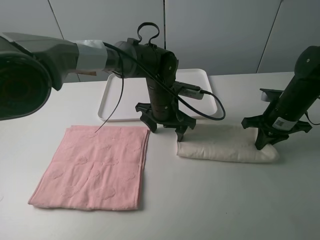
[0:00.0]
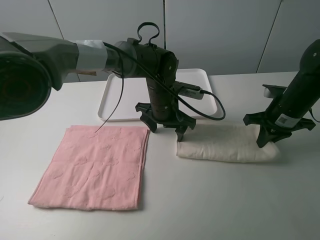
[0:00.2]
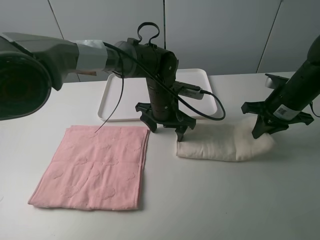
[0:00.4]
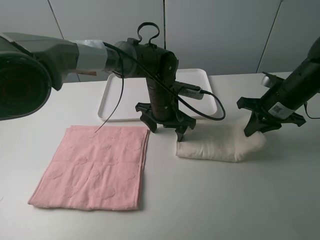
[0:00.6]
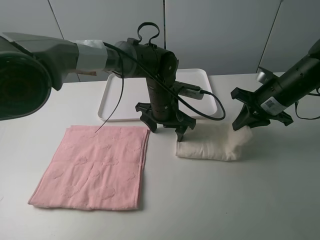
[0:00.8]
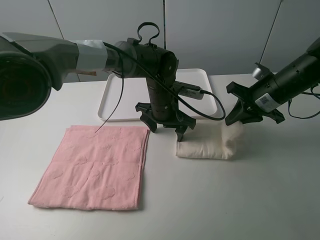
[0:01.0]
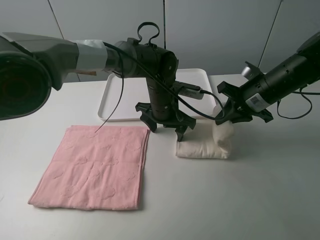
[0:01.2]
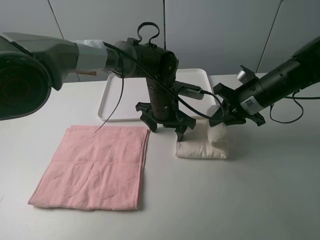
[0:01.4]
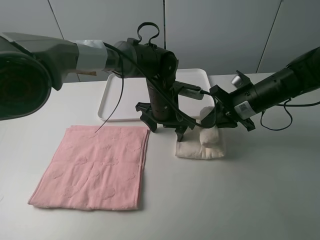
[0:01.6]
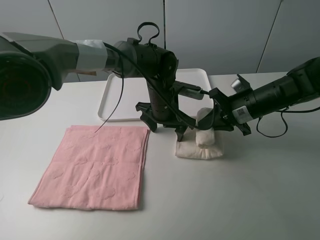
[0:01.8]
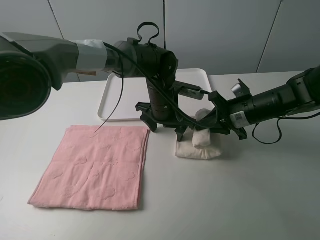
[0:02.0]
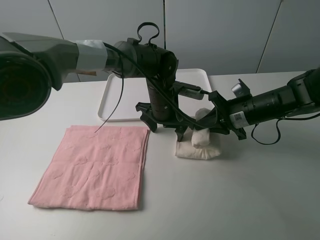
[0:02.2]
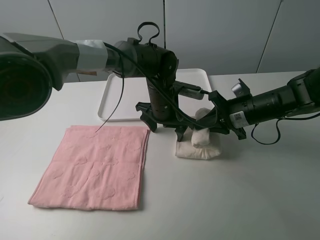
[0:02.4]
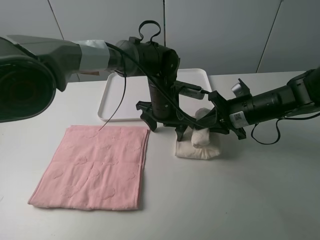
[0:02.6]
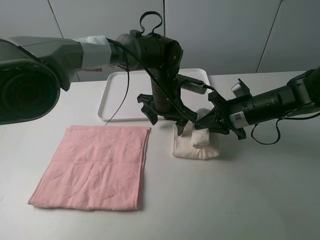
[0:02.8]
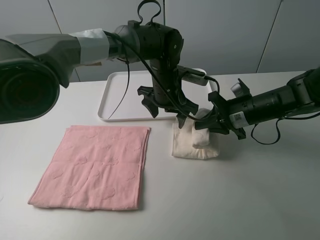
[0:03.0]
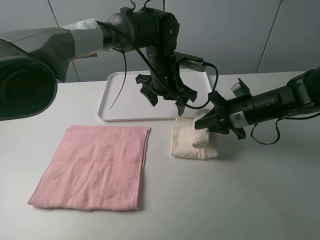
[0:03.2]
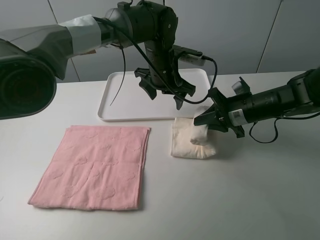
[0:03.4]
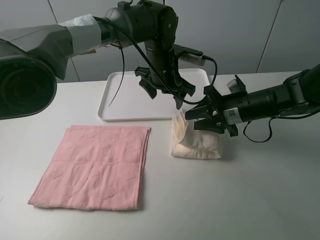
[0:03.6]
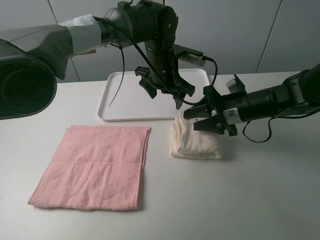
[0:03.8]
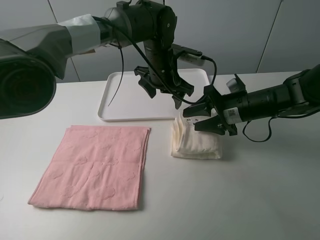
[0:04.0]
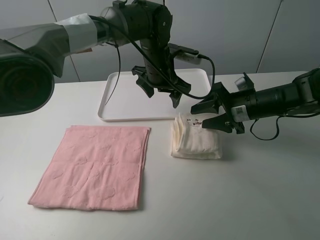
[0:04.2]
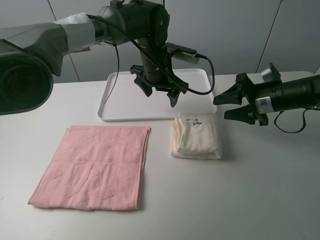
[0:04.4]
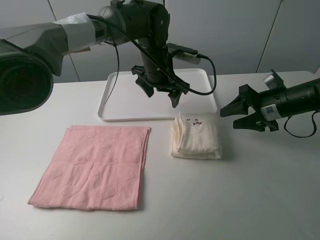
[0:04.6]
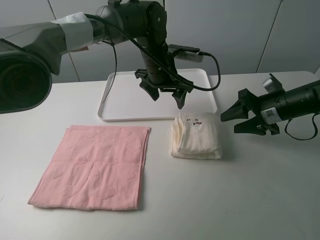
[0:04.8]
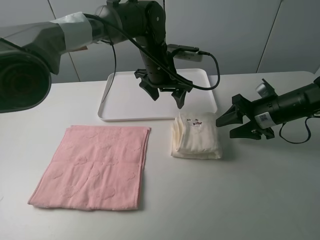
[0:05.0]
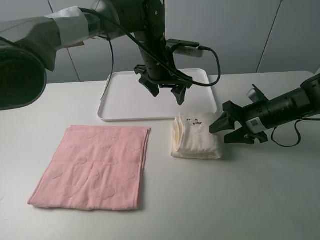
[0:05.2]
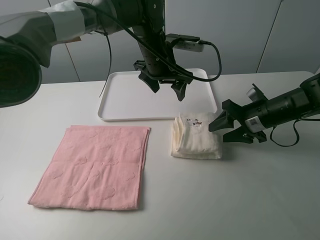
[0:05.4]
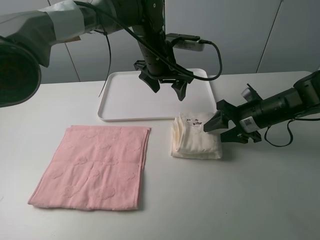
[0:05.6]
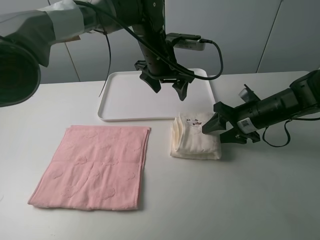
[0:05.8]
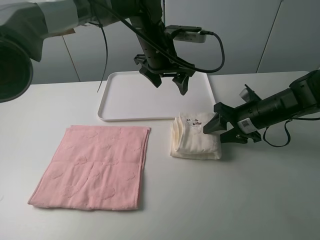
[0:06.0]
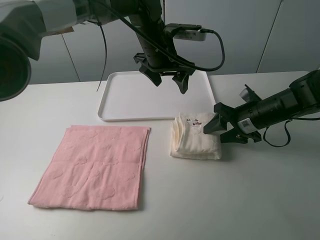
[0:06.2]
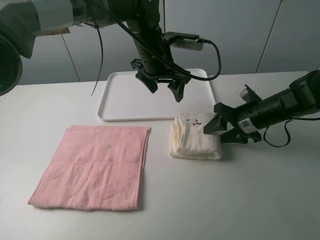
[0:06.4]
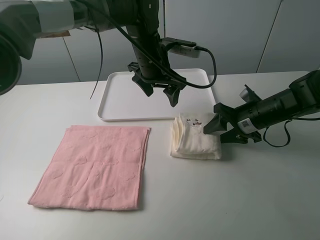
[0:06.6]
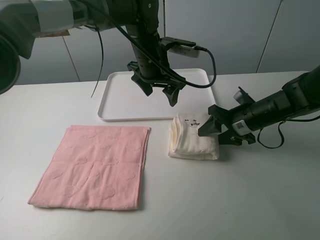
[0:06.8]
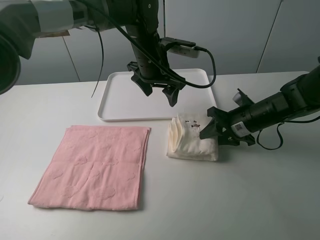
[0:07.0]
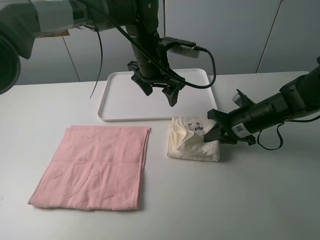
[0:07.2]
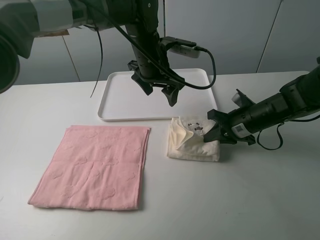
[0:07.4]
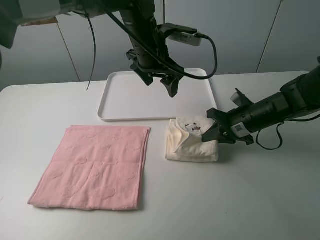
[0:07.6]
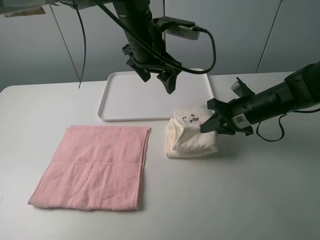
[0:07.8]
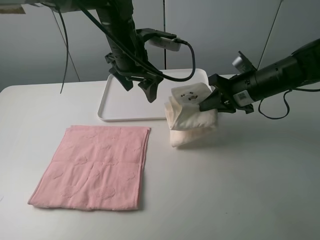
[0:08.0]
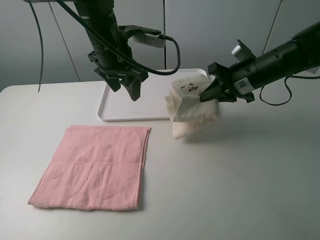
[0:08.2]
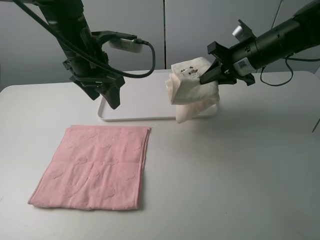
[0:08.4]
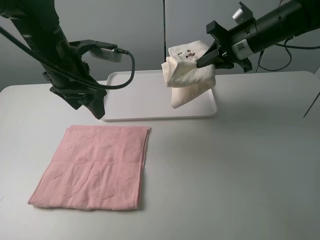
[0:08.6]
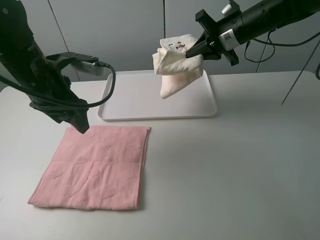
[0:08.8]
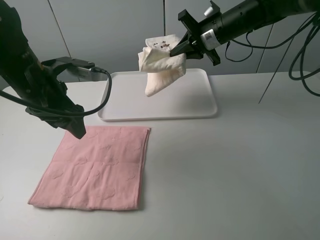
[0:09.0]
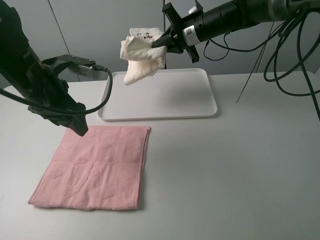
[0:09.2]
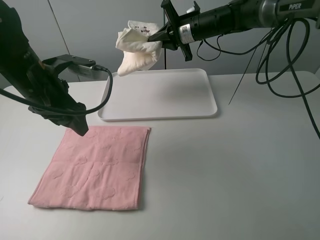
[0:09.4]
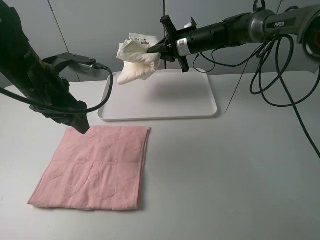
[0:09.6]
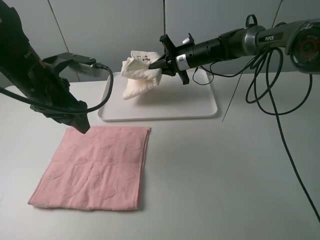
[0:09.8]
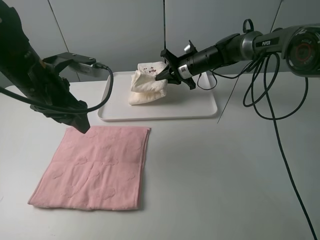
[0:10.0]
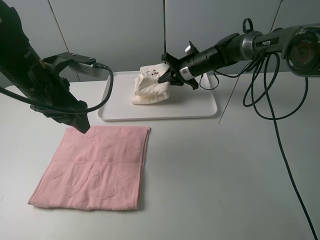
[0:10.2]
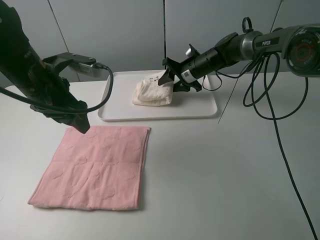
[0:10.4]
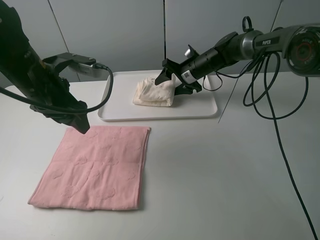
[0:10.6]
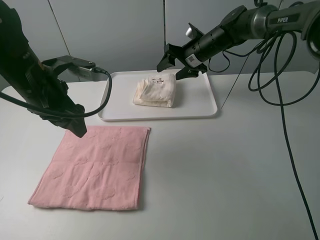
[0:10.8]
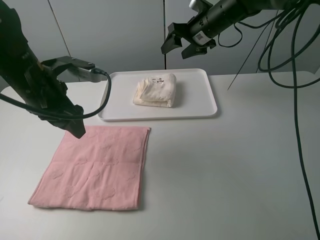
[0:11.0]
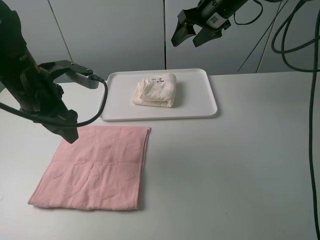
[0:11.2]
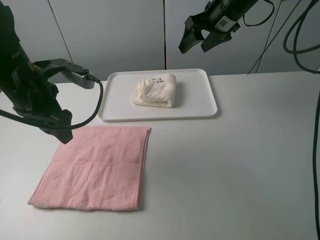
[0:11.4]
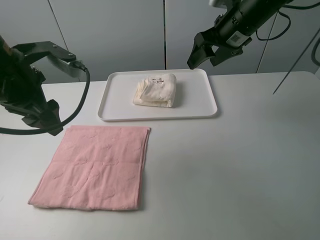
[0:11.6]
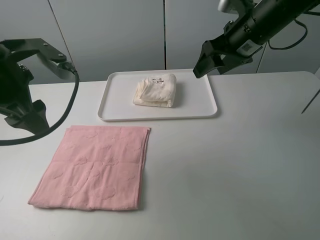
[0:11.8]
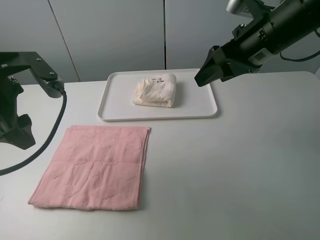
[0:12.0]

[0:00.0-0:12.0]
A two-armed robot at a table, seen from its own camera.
Task of the whole recording: fold one of the towels by two grippers and place it on the tray,then fold another towel by two grippers and place it on the folded towel.
Step, 0:00.0 to 0:04.6: Fold the white towel from right to left with right gripper.
Step, 0:04.8 to 0:07.4: Grasp the white towel with the right gripper.
Step, 0:07.6 to 0:11.0: Move the white towel to the plate with the right gripper.
0:00.0 to 0:01.6: The right gripper is displaced to the left by roughly 5 cm.
0:01.6 to 0:03.0: The grippers stay close to where they were, moving slightly.
0:03.0 to 0:04.4: The left gripper shifts by roughly 5 cm; the right gripper moves to the right, about 5 cm, and opens.
0:04.4 to 0:06.0: The right gripper moves about 5 cm.
0:06.0 to 0:07.6: The right gripper closes.
0:07.6 to 0:09.0: The right gripper is displaced upward, forward and to the left by approximately 20 cm; the left gripper shifts some 20 cm to the left and backward.
0:09.0 to 0:10.4: The right gripper is displaced downward and forward by roughly 15 cm, and opens its fingers.
0:10.4 to 0:12.0: The left gripper travels backward by roughly 5 cm. Meanwhile the right gripper heads backward and upward, covering approximately 25 cm.

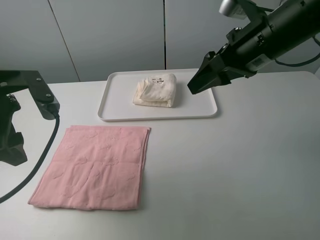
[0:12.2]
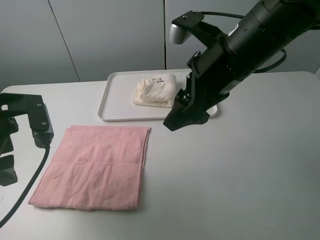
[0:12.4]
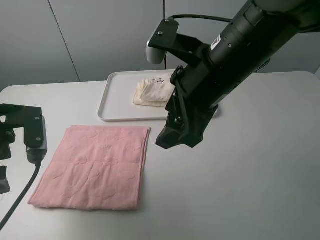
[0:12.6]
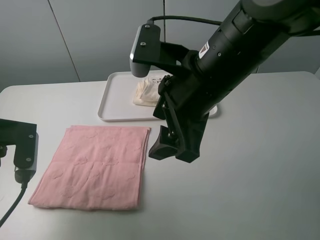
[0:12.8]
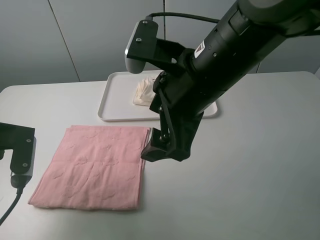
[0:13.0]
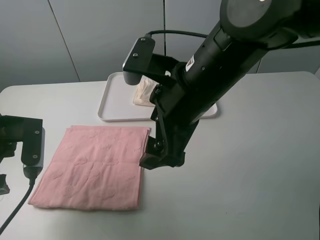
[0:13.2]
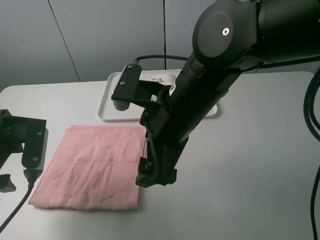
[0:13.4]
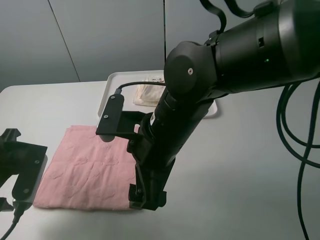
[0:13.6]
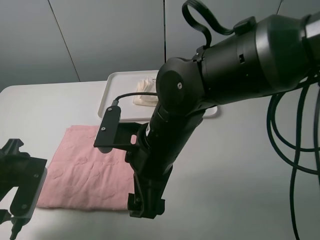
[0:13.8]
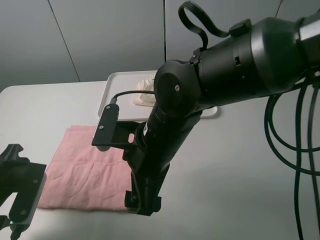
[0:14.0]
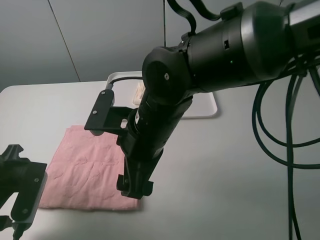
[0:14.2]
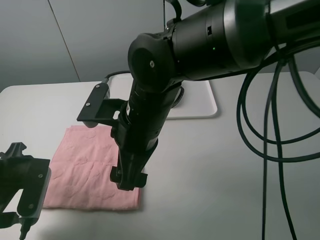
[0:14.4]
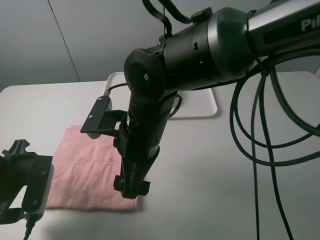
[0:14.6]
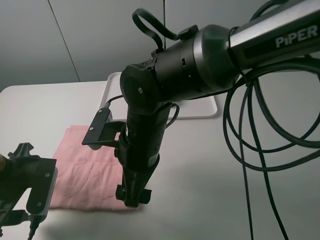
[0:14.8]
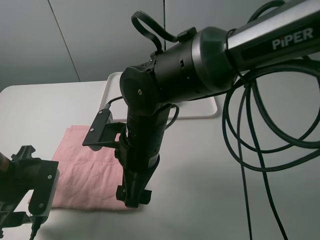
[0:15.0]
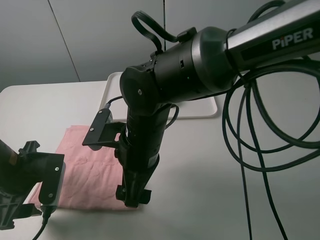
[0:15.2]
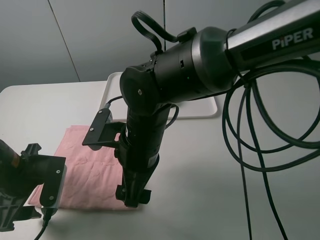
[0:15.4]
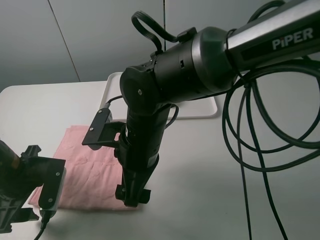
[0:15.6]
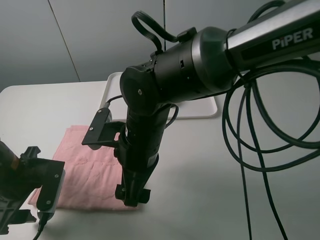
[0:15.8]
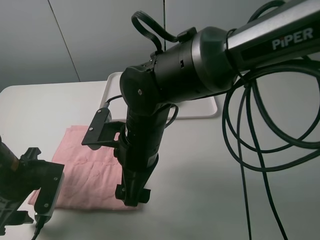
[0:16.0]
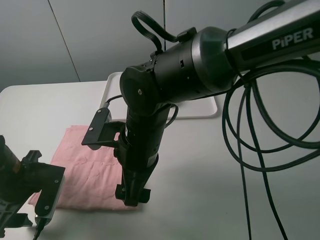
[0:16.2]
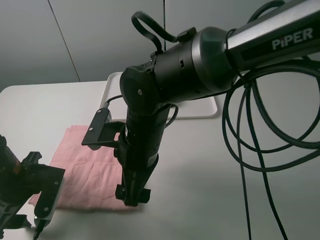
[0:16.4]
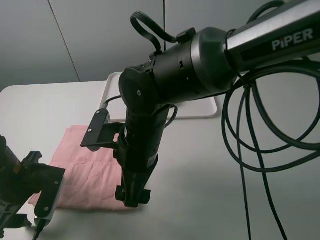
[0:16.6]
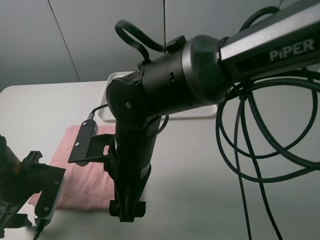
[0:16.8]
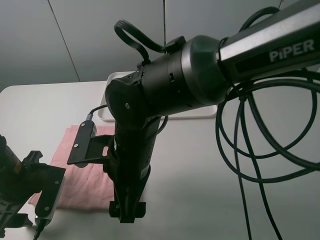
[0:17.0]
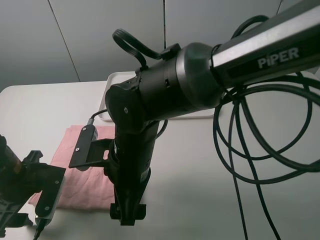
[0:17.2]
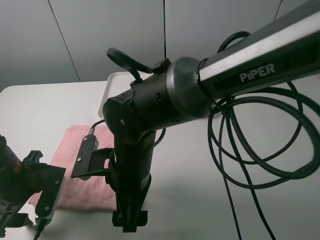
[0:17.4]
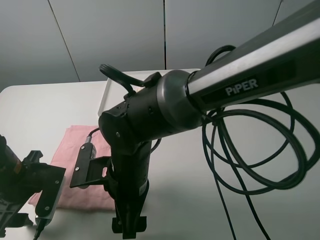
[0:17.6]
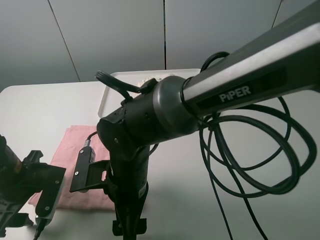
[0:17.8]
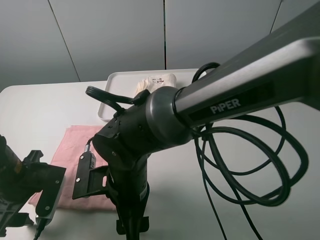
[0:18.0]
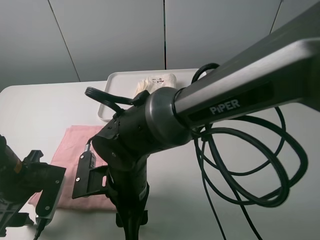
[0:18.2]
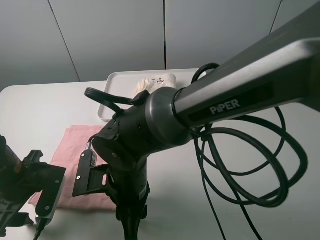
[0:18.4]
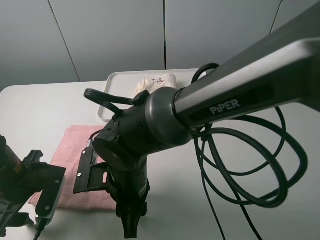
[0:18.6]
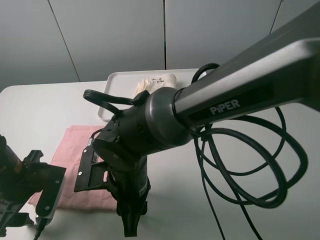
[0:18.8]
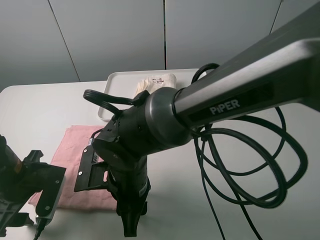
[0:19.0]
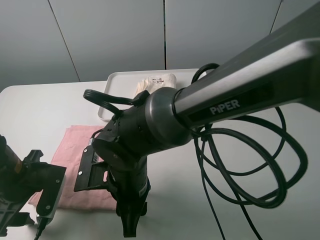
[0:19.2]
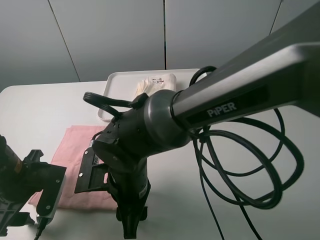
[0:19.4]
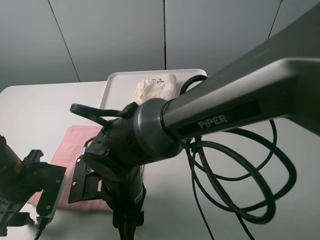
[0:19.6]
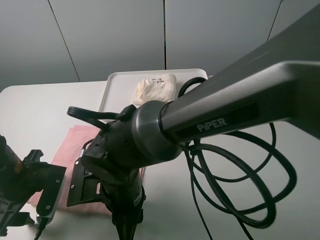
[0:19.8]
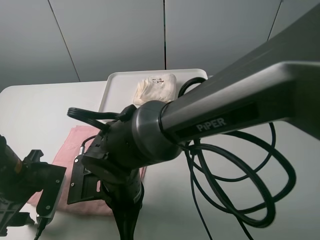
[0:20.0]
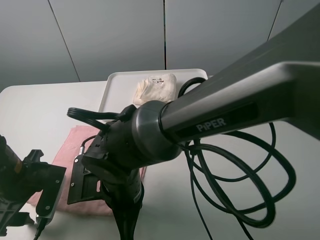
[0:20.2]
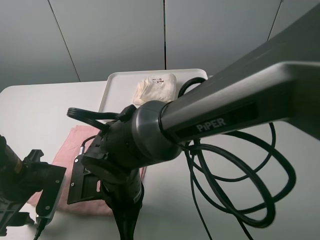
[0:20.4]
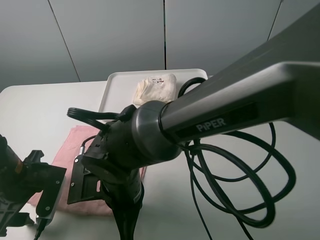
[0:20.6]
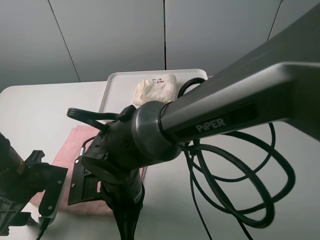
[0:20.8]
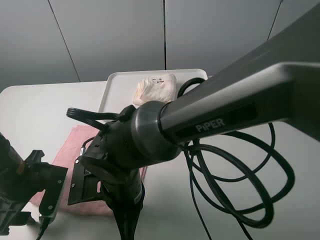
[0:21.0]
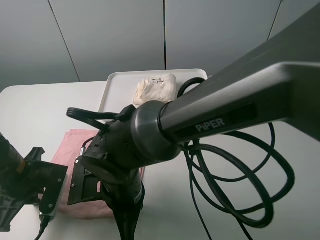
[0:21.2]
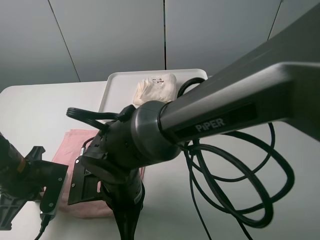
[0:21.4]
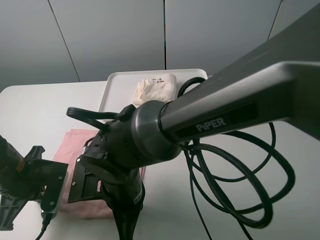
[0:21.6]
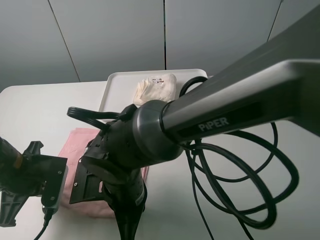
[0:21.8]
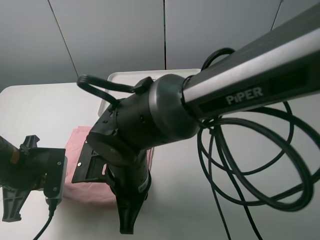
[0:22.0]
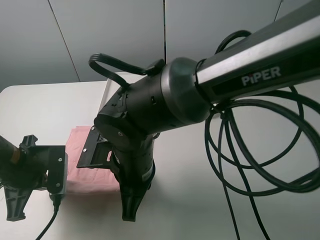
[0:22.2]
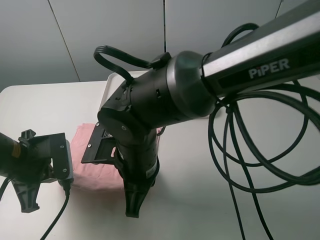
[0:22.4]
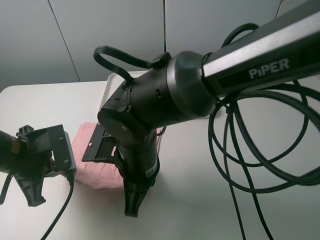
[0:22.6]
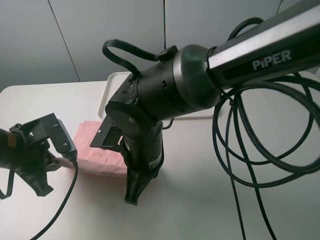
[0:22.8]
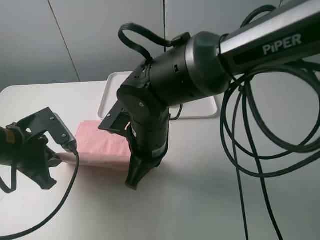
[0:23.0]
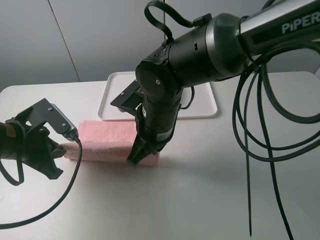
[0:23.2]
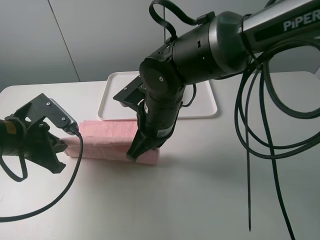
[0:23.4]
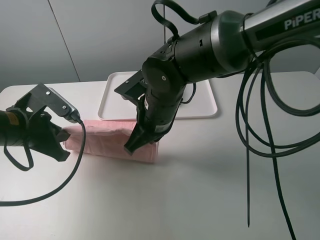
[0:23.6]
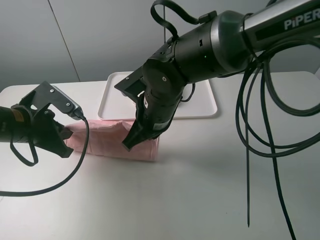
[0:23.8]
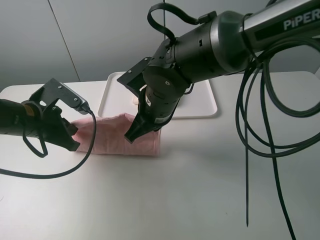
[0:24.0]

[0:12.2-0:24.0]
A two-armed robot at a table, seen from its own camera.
Task of the whole recording: fold one of the towels by two grippers and place it on the tray,then fold another towel by two grippers and place it on the folded towel.
Step, 0:12.2 to 0:21.4: Grasp the pink towel with the left gripper.
0:12.2 to 0:13.6: The right gripper goes some 20 cm to the left, backward and downward; the left gripper is displaced downward by some 10 cm.
0:15.2 to 0:16.6: The grippers make only small movements.
0:16.6 to 0:18.2: The right gripper heads downward, covering about 5 cm, and closes.
0:19.6 to 0:21.0: The right gripper closes its fingers.
0:21.0 to 0:22.6: The left gripper closes up. Meanwhile the right gripper ends up approximately 5 cm from where it was.
0:22.6 to 0:24.0: The grippers both shift forward by approximately 10 cm.
